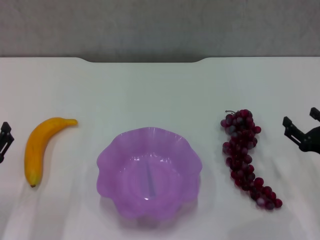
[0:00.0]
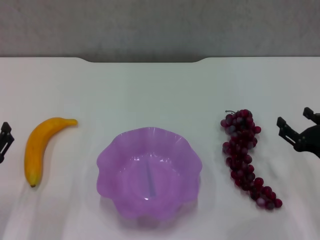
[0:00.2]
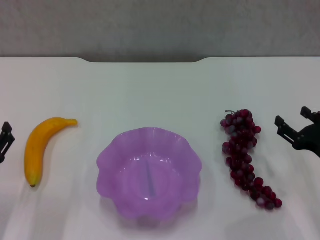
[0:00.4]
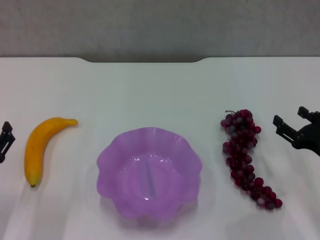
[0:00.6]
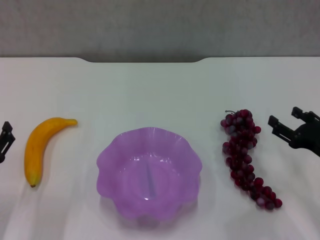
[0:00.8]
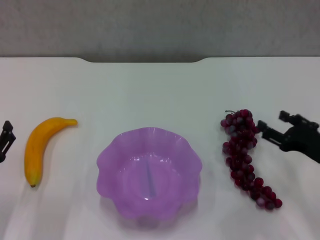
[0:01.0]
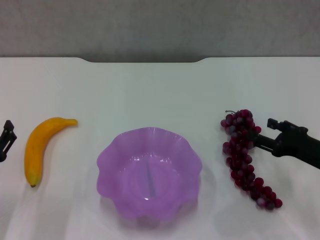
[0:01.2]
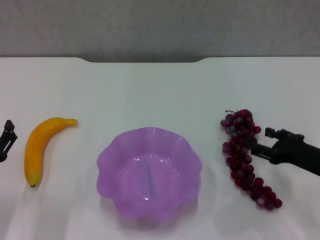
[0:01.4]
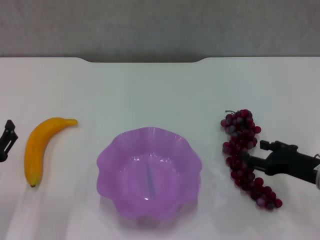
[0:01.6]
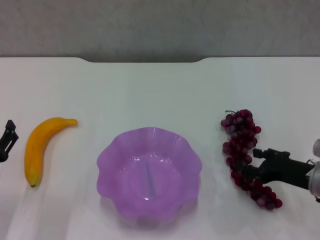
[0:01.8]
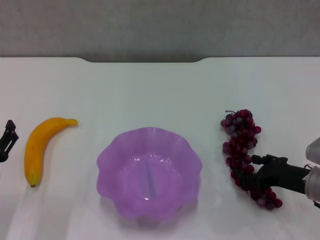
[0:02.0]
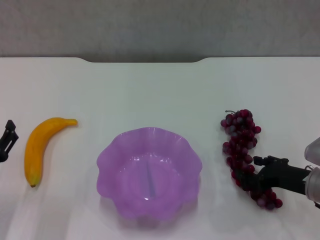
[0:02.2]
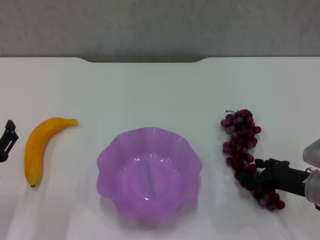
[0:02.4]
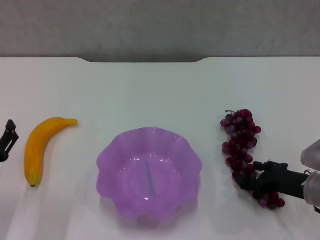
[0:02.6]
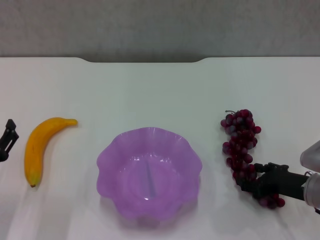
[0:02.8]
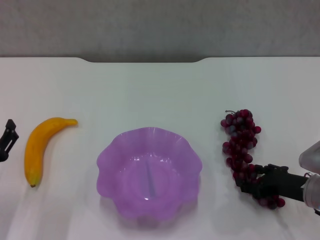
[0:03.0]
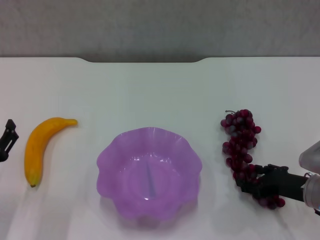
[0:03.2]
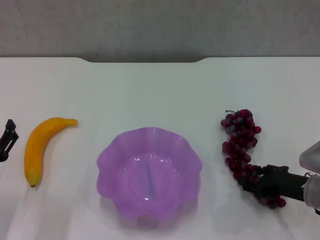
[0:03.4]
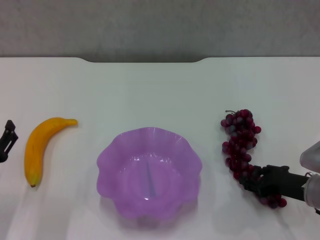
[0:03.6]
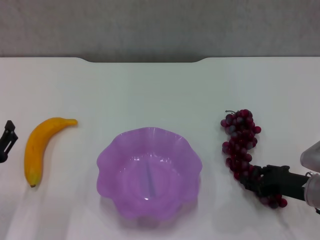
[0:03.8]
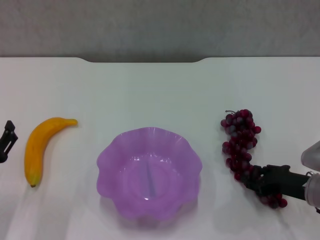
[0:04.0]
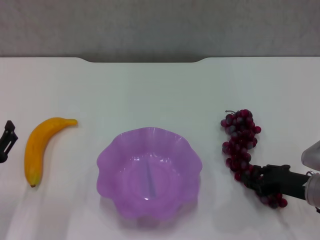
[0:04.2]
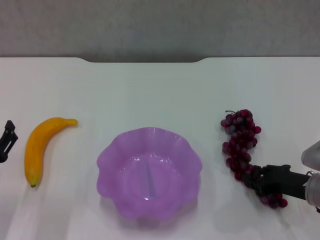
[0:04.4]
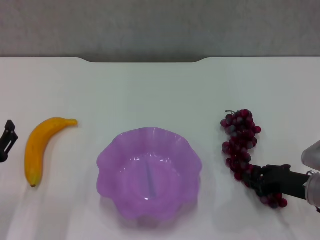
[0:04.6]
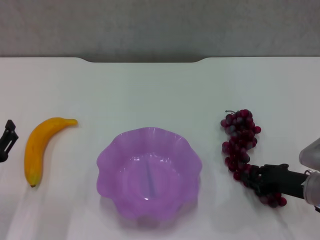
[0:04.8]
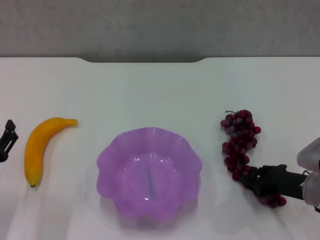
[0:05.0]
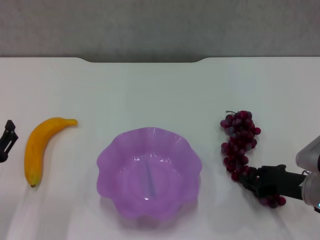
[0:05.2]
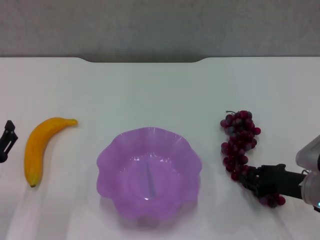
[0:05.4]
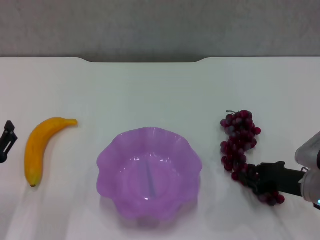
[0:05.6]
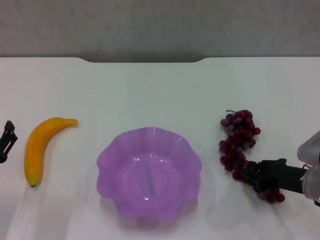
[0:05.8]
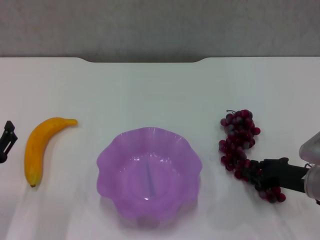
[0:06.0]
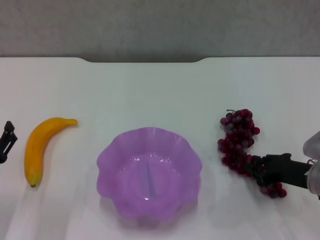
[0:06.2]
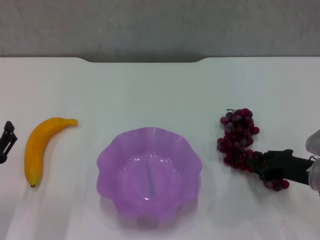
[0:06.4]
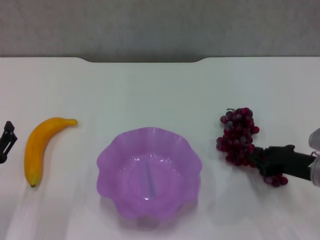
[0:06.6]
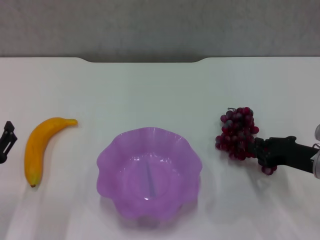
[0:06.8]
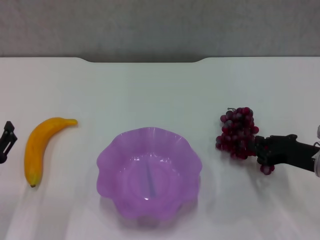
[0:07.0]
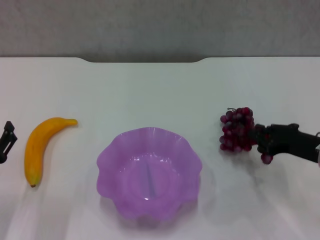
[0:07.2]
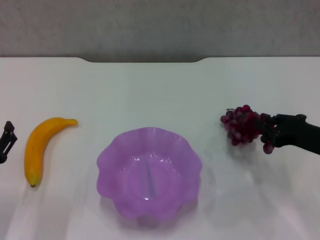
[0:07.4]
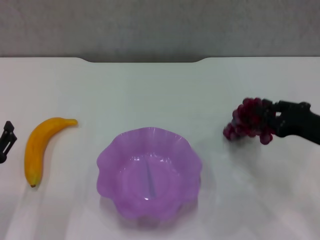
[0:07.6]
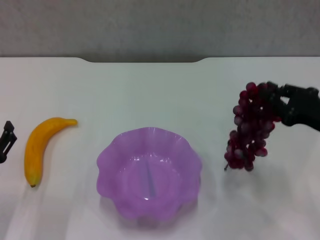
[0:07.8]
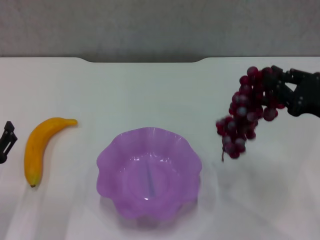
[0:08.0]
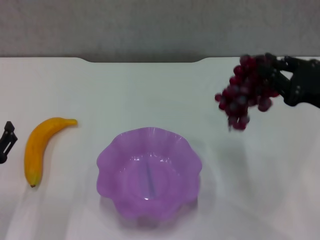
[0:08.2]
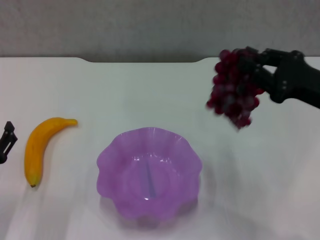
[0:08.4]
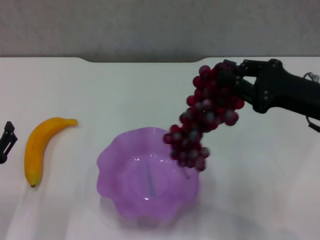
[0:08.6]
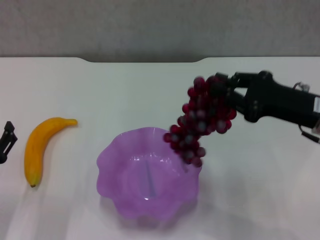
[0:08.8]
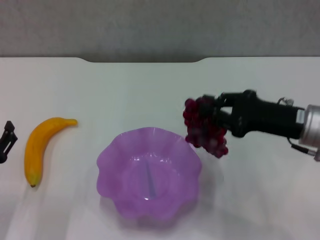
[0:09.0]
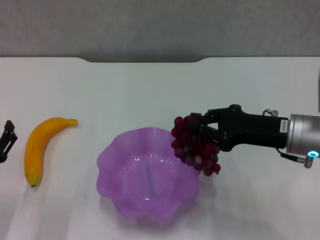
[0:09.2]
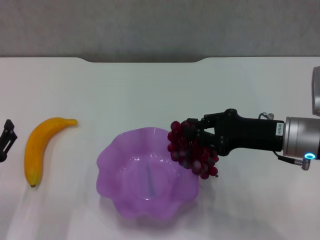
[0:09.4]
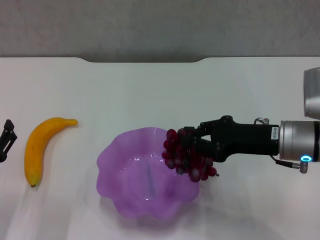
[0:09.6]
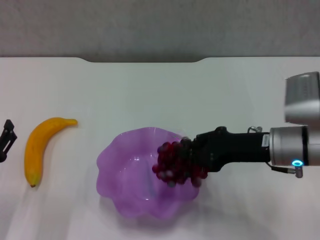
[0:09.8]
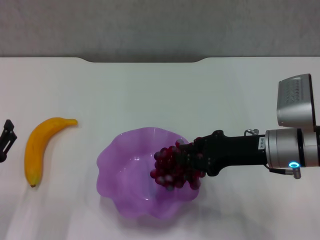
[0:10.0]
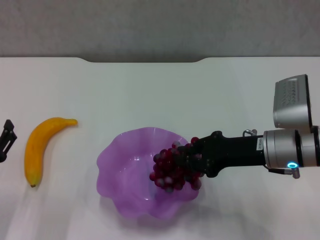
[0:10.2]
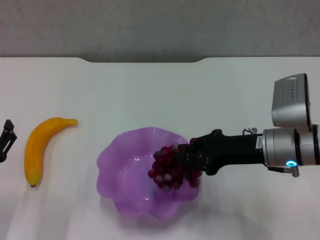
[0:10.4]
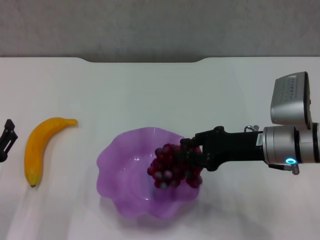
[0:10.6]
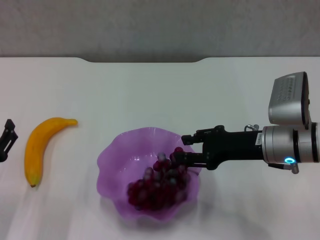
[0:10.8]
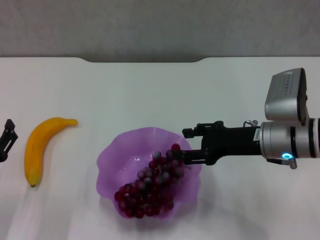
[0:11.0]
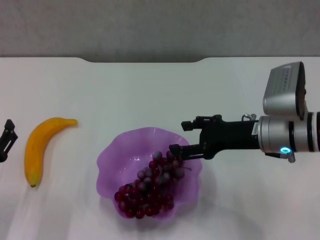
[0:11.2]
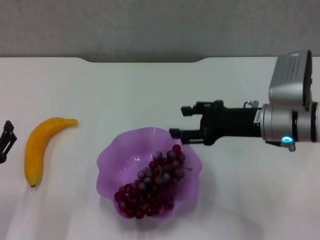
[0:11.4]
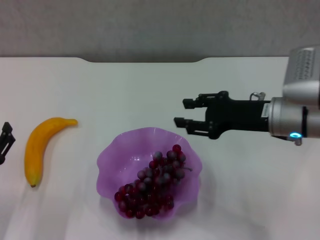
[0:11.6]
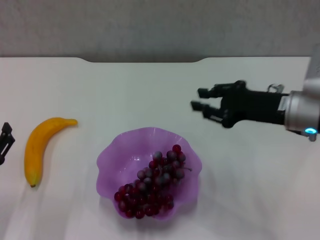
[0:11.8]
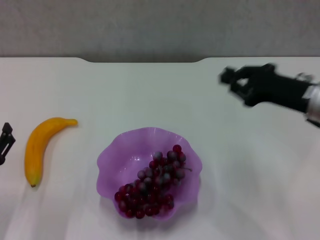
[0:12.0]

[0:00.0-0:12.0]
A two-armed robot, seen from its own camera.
Step, 0:00.0 to 0:05.0: Grasp the grape with right gripper.
Step, 0:05.2 to 0:11.2: Place the grape in the purple plate with right gripper.
0:01.6 to 0:03.0: The grippers stay close to where they were, moving slightly.
0:03.0 to 0:04.4: The right gripper closes up.
0:04.4 to 0:06.0: Neither gripper changes place.
0:06.0 to 0:07.6: The right gripper travels upward by some 5 cm.
0:07.6 to 0:09.0: The right gripper is displaced to the left by some 5 cm.
0:09.0 to 0:10.4: The right gripper moves some 5 cm.
0:10.4 to 0:12.0: The right gripper goes approximately 5 cm to the right, and opens, then closes again.

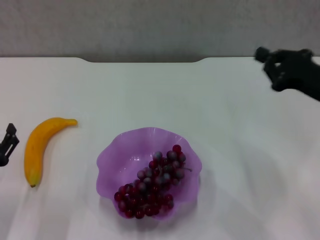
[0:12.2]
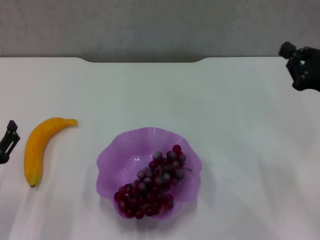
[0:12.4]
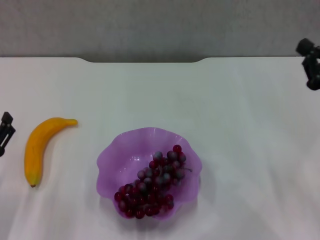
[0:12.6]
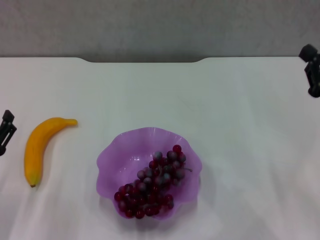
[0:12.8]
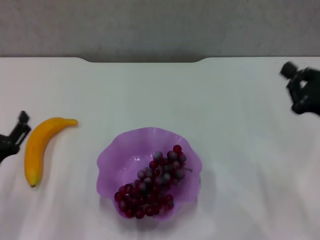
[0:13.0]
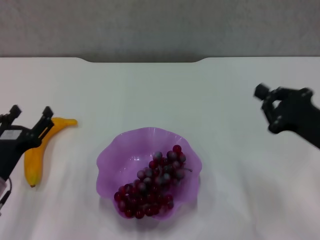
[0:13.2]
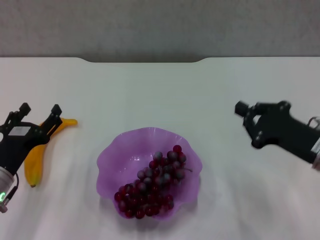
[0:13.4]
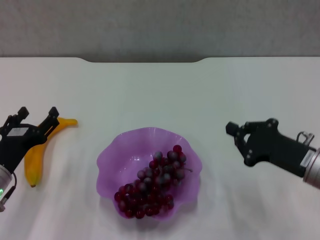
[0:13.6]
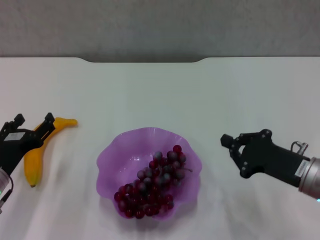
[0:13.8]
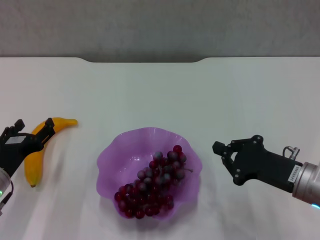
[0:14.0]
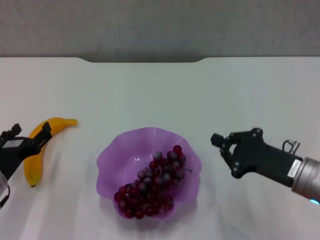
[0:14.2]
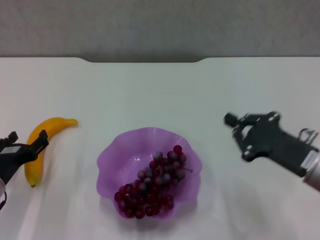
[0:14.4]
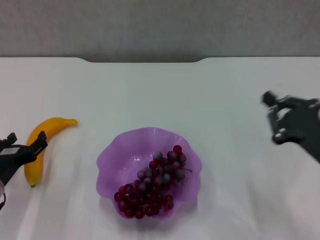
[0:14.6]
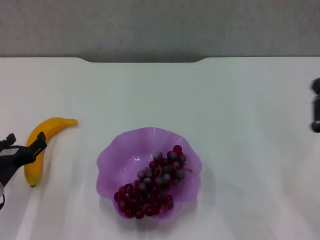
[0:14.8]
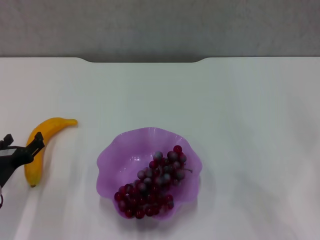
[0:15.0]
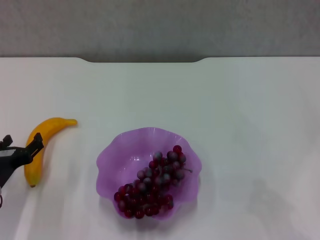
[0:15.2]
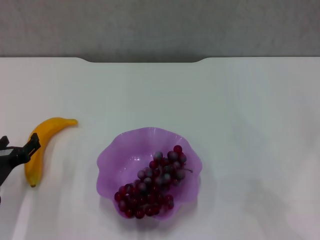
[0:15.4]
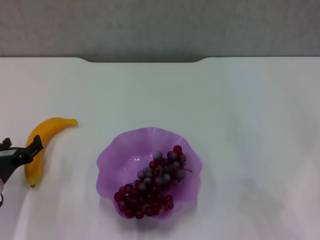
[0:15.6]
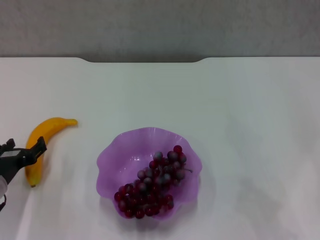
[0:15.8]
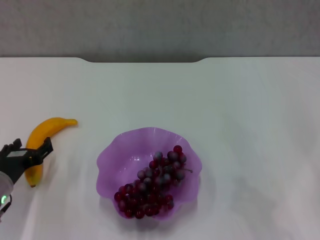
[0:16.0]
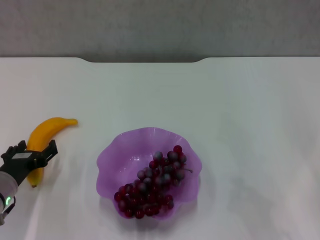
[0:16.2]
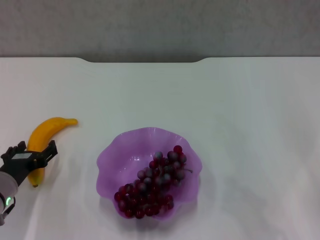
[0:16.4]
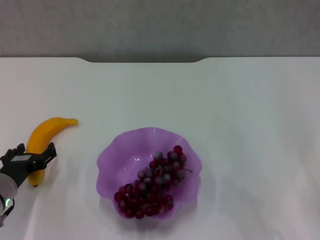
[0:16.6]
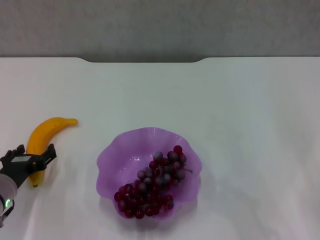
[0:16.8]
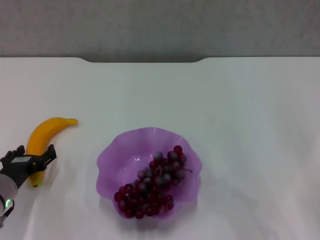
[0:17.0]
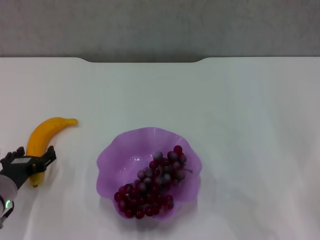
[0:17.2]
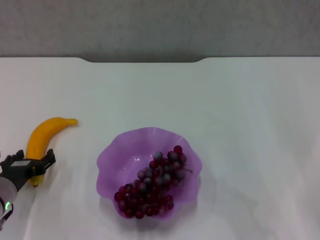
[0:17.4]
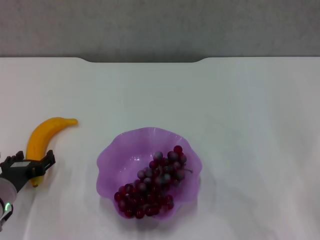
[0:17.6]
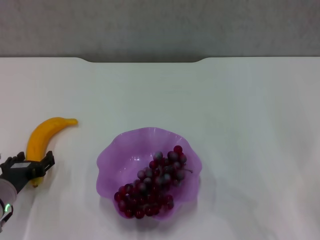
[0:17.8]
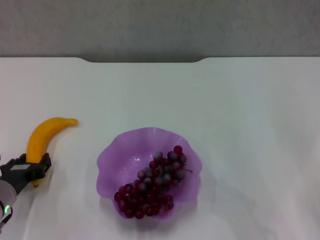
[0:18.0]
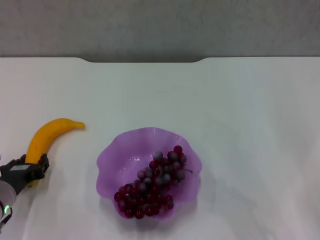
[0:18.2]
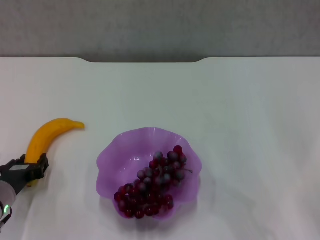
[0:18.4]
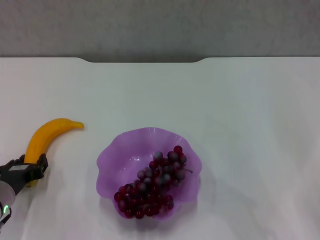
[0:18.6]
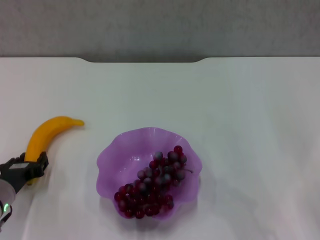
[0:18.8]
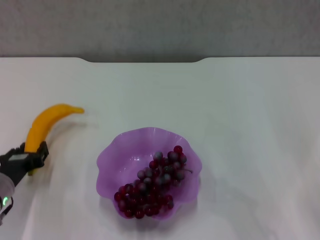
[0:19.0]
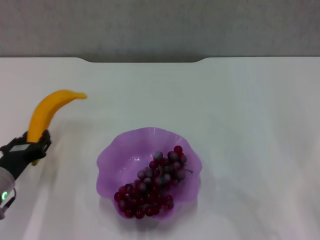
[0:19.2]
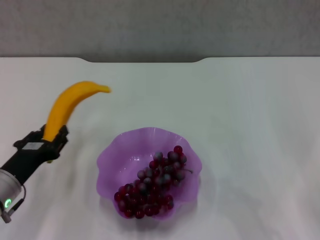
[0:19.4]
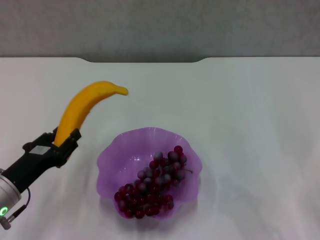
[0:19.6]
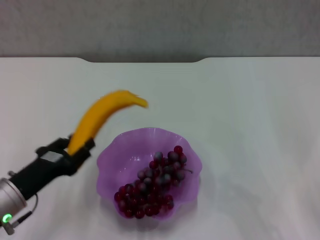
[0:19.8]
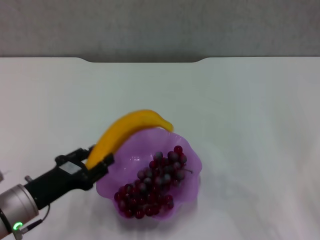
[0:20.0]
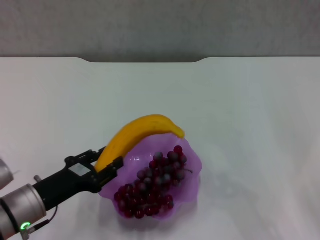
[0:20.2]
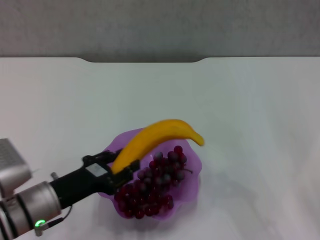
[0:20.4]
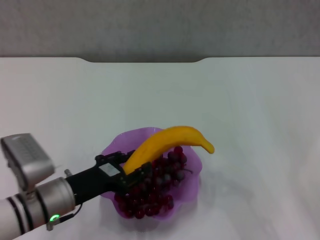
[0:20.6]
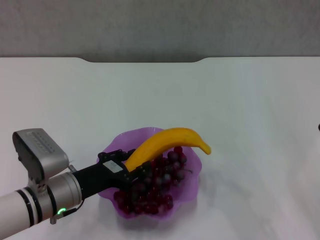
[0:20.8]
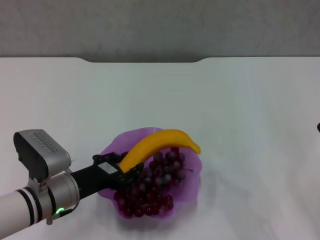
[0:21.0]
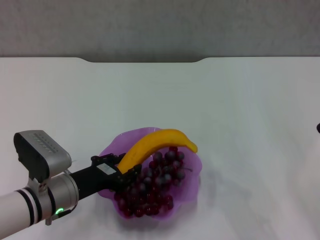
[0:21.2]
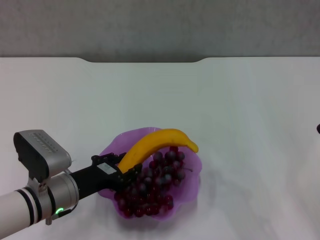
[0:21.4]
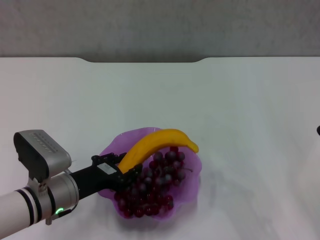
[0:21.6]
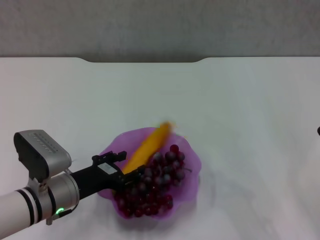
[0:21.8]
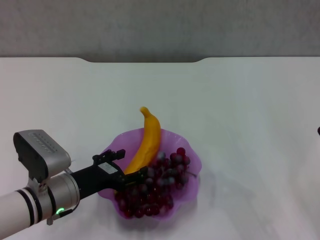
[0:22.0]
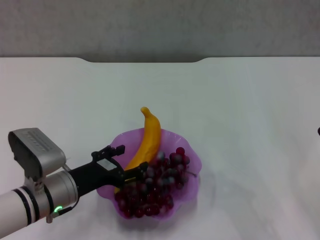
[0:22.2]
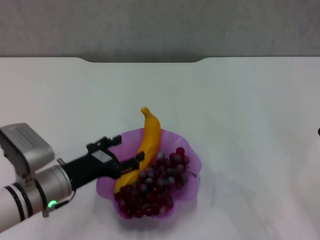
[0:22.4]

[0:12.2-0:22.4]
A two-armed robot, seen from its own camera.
Step, 0:12.2 to 0:18.4: Grasp the banana with left gripper.
Step, 0:18.6 to 0:22.0: Place the banana in the purple plate with left gripper.
0:12.2 to 0:13.6: The right gripper shifts some 10 cm downward. Meanwhile the left gripper is displaced forward by some 5 cm.
0:13.6 to 0:15.2: The right gripper travels to the right and backward by roughly 10 cm.
0:15.2 to 0:16.6: There are only small adjustments of the grippers.
0:16.6 to 0:18.0: Both grippers stay about where they are.
0:19.4 to 0:21.0: The left gripper shifts approximately 5 cm to the right.
0:21.0 to 0:22.4: The left gripper opens its fingers.
